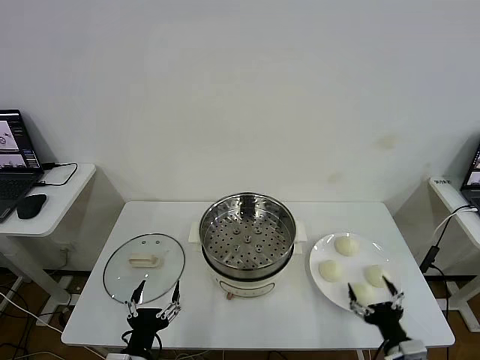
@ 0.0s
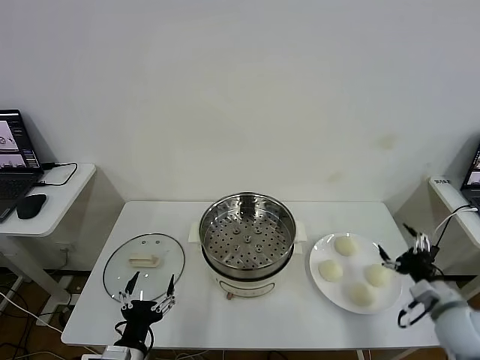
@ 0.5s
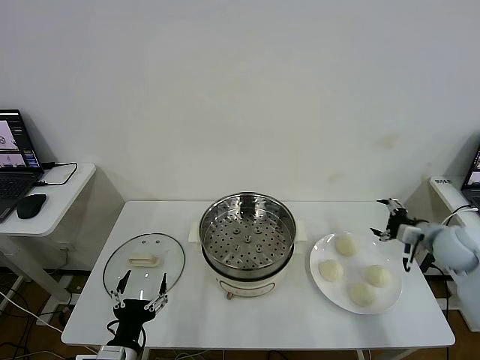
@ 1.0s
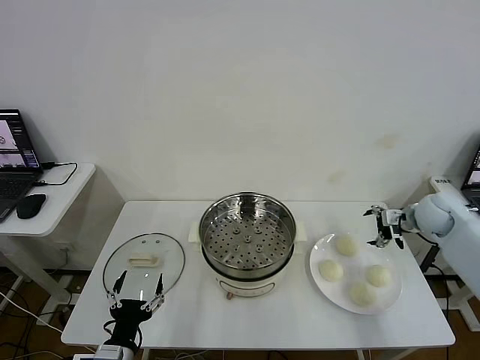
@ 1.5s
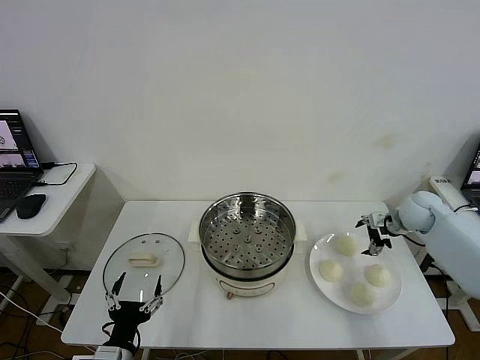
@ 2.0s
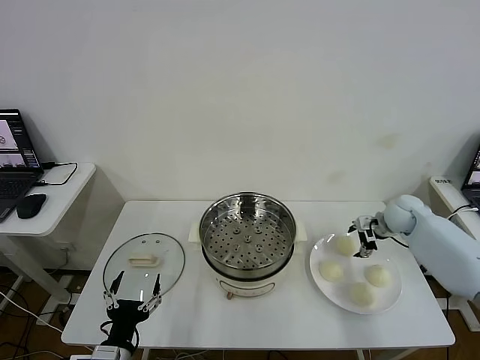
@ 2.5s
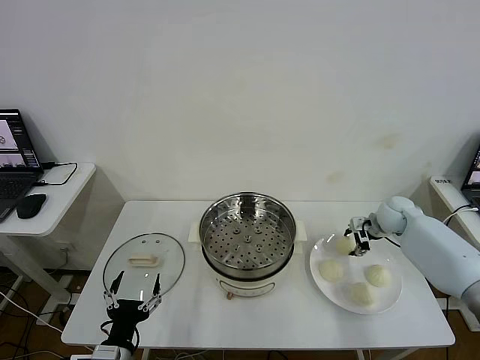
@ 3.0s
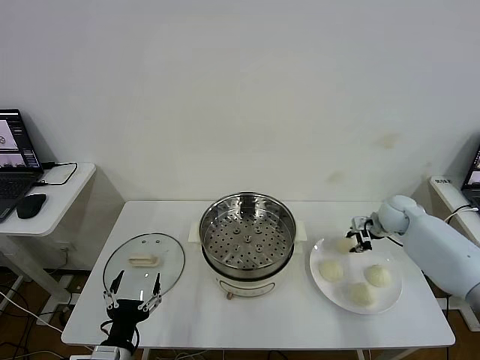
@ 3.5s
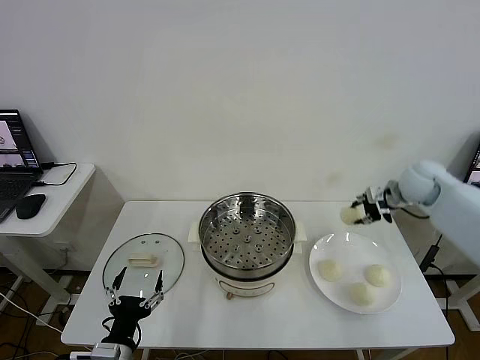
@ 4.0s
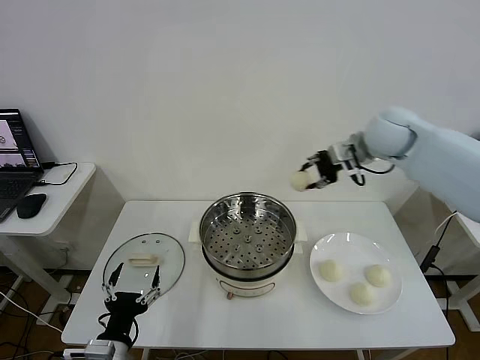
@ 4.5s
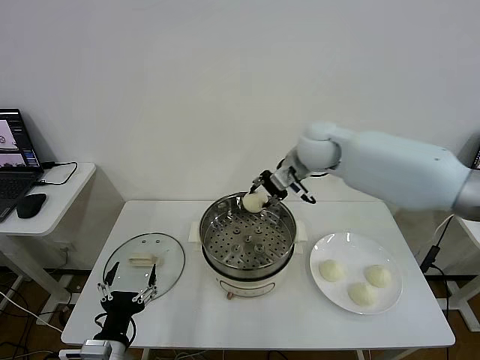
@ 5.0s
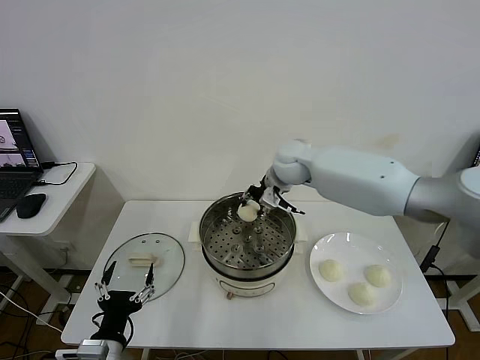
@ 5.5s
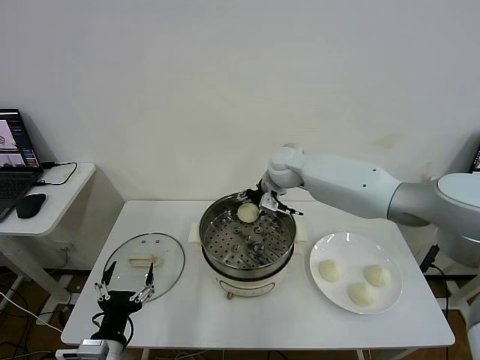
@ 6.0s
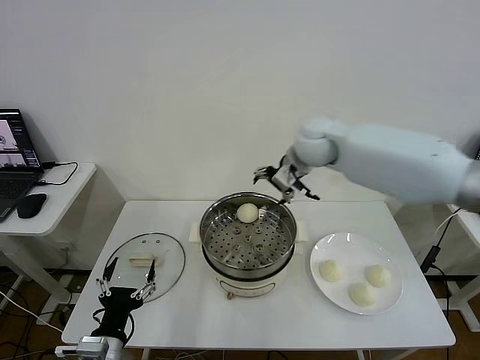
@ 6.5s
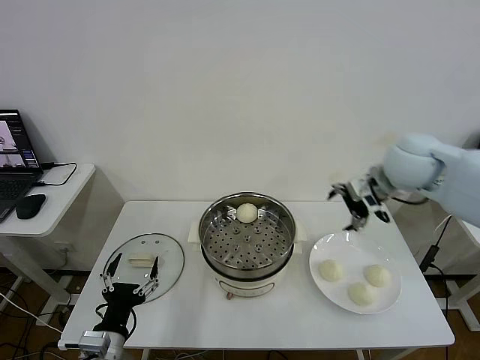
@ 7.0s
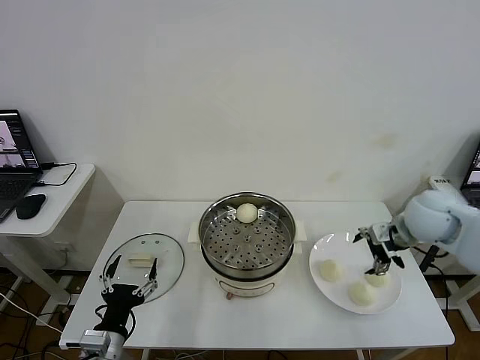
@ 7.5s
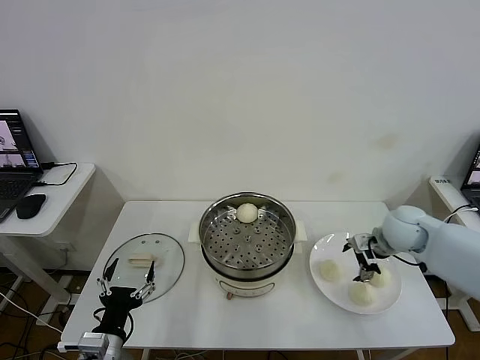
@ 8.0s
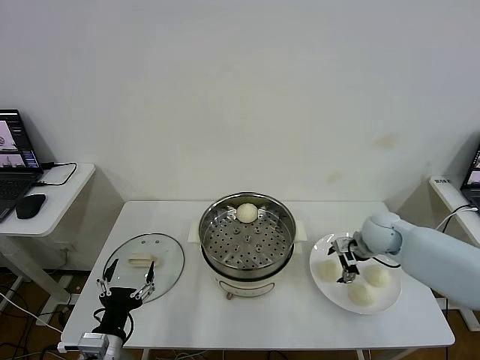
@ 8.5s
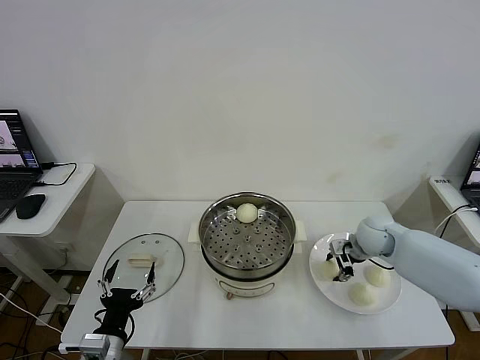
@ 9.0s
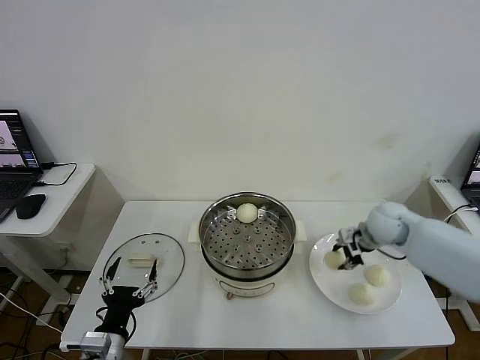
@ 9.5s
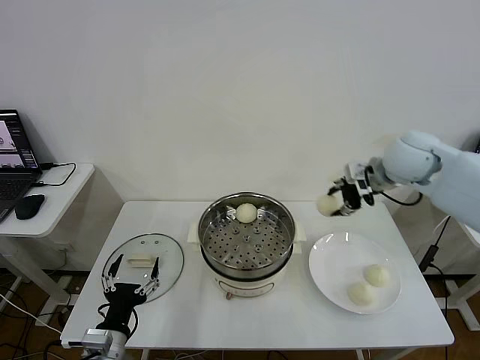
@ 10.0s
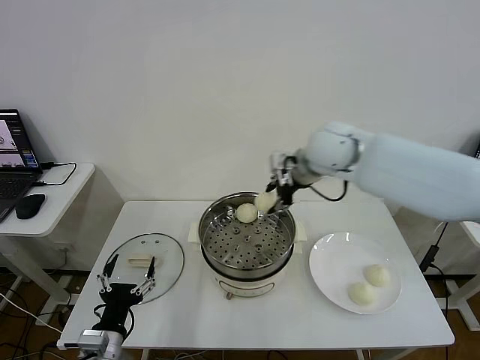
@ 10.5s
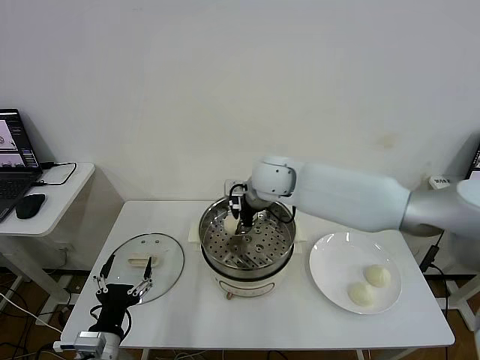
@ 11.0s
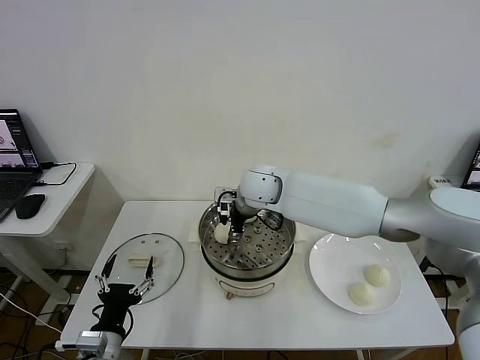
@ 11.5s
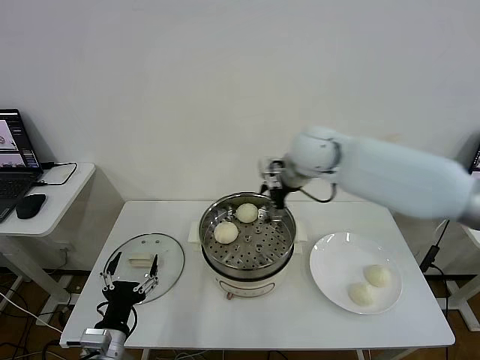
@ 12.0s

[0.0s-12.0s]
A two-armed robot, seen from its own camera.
Step, 0.0s to 3.0s: Grasp the baozi in the plate with right gripper.
Step, 3.5s to 6.0s: Place the baozi on the steamer with right gripper.
Step, 6.5s to 9.0s: Grasp the baozi in the plate with right gripper.
Step, 9.5s to 11.5s: Place the baozi on the steamer with right gripper.
2.0s to 4.0s: The right gripper travels upward by about 15 cm, and closes up.
4.0s to 6.0s: The right gripper travels to the left by about 30 cm, and opens up.
6.0s to 8.0s: The right gripper is displaced to the right and backward by some 30 cm.
8.0s to 10.0s: The right gripper is displaced upward by roughly 20 cm, and closes up.
10.0s to 12.0s: The right gripper shifts some 10 cm to the left, and opens up.

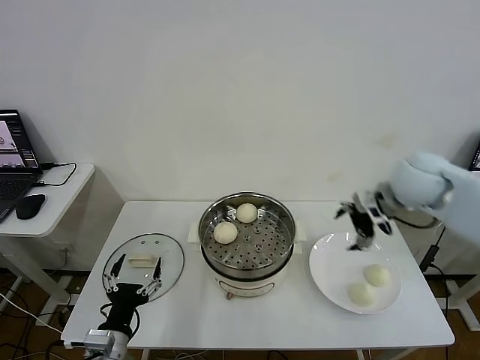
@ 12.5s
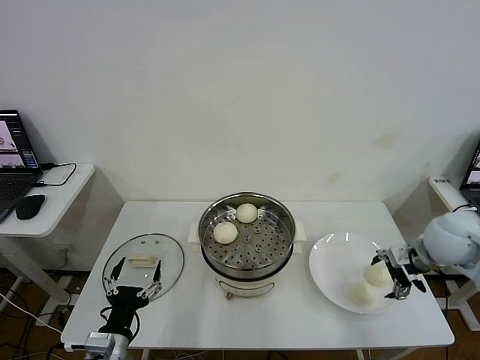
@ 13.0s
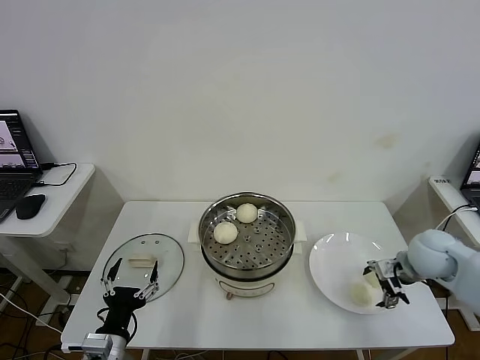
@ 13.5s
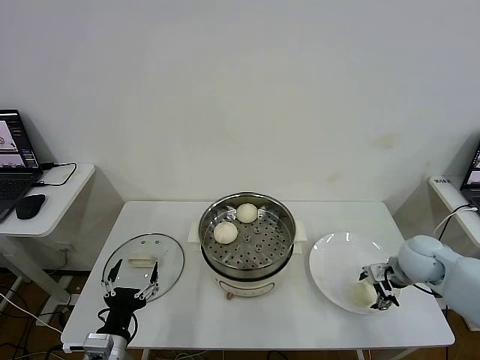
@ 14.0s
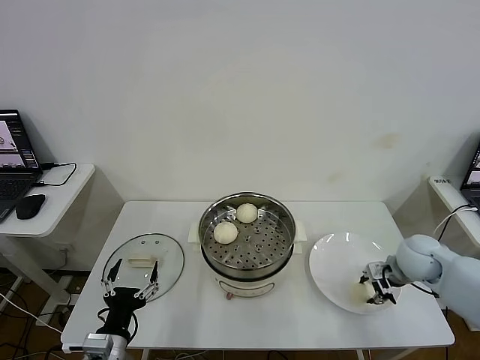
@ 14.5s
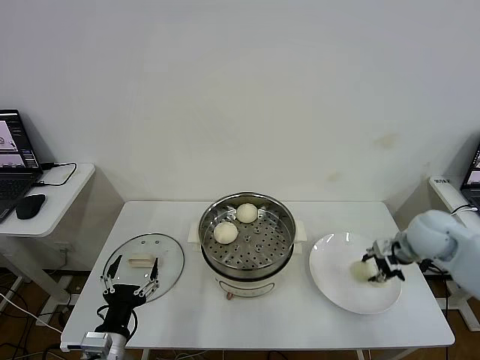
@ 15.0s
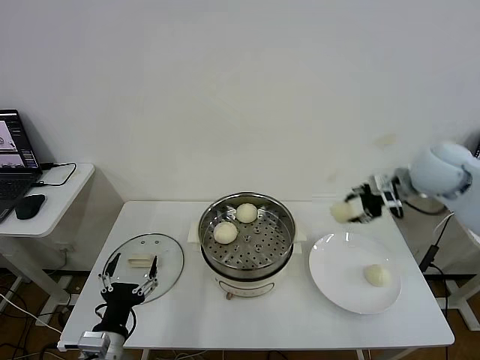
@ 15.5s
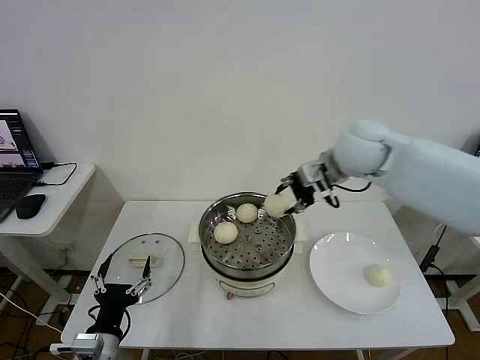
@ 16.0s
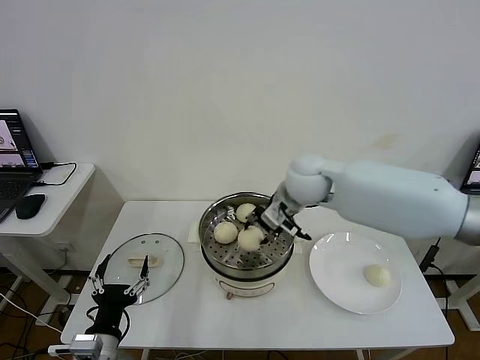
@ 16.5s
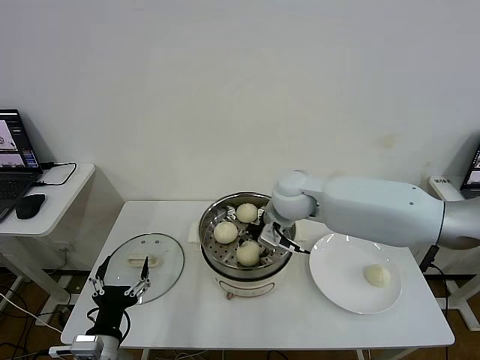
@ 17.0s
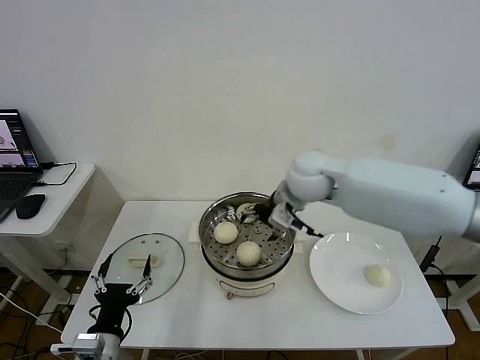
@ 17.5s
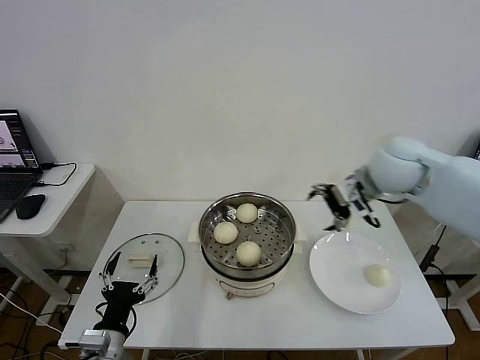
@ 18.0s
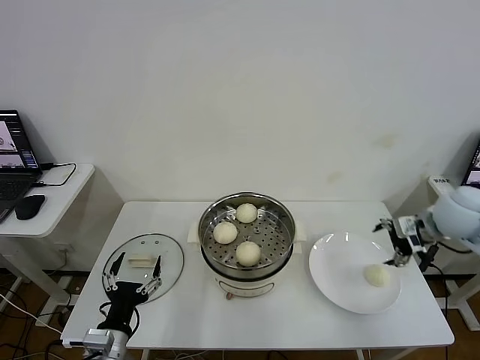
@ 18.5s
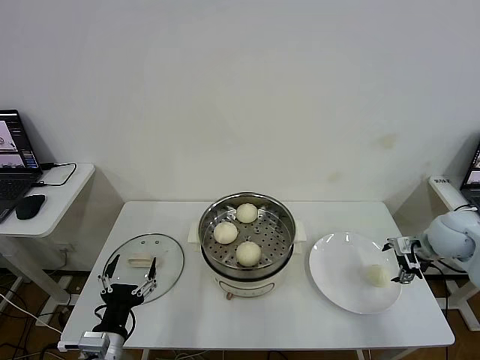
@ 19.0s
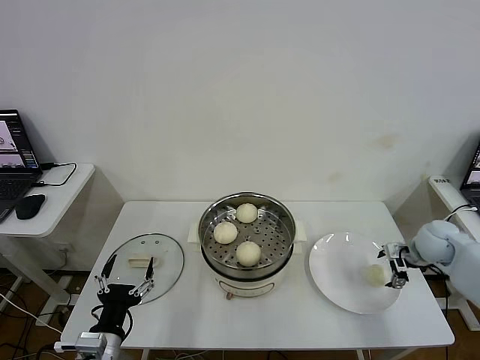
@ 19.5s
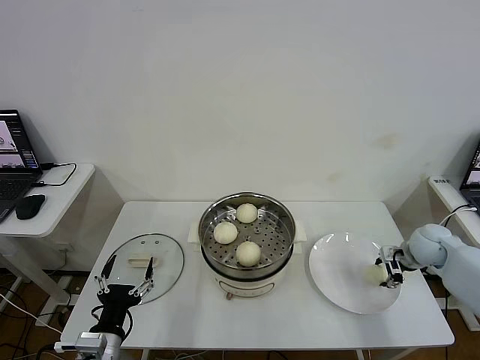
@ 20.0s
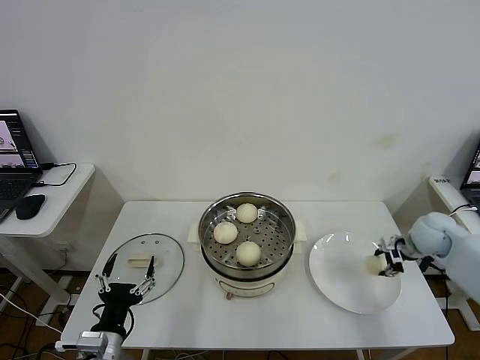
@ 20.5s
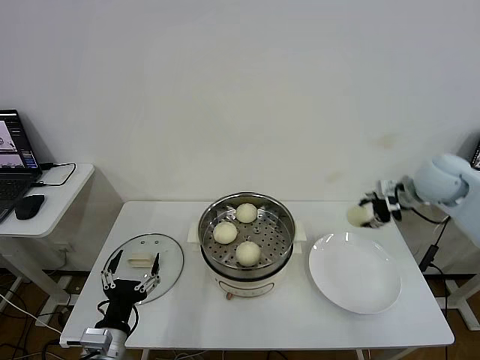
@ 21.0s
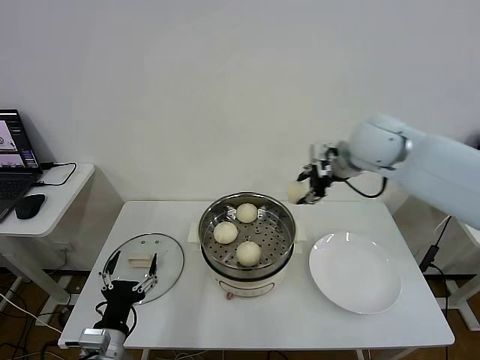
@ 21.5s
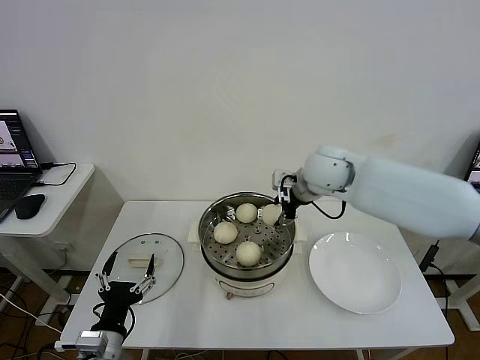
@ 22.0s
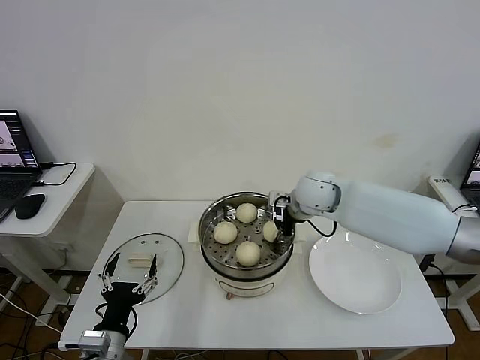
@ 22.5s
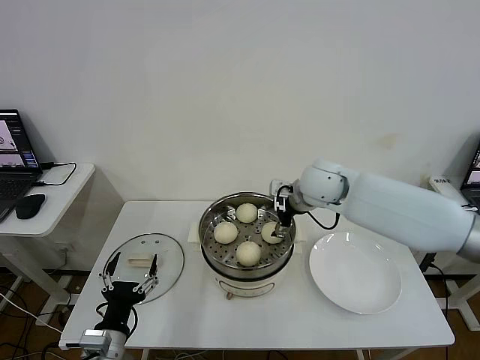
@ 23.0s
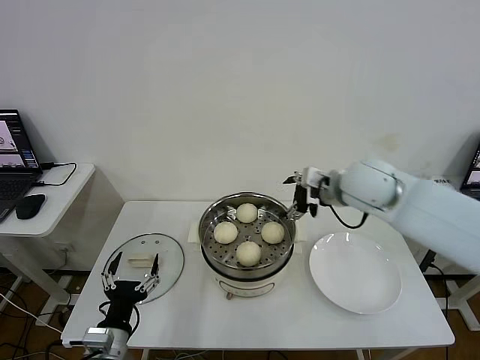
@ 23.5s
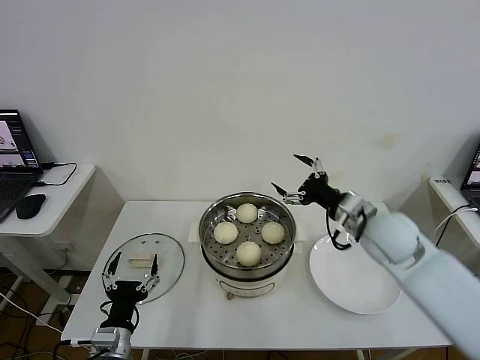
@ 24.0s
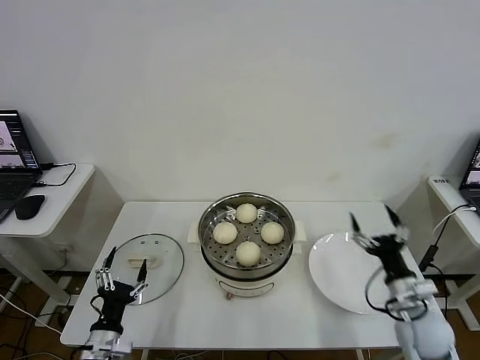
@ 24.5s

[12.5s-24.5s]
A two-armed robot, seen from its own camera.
Step, 12.5s to 14.0s: Grasp the baozi in the plate with right gripper.
Step, 14.5s to 17.0s: Place the baozi on the steamer with right gripper.
Step, 17.5s to 20.0s: Grasp the baozi in the plate with right gripper.
Step, 20.5s to 22.5s: Place the baozi on the steamer with right gripper.
12.5s to 14.5s: The right gripper is displaced downward by approximately 15 cm, and closes up.
14.5s to 16.5s: The right gripper heads to the left and upward, covering about 30 cm.
16.5s to 18.5s: The right gripper heads to the right, covering about 30 cm, and opens up.
18.5s to 20.5s: The right gripper is displaced downward by approximately 10 cm, and closes up.
20.5s to 22.5s: The right gripper goes approximately 30 cm to the left.
22.5s to 24.5s: The left gripper heads downward, covering roughly 5 cm. The right gripper travels backward, to the right and downward by approximately 35 cm, and opens up.

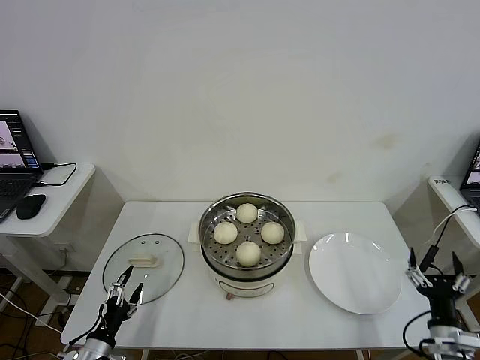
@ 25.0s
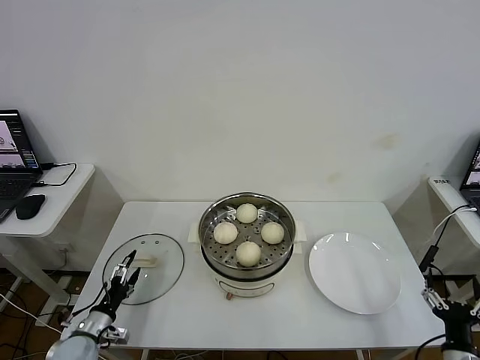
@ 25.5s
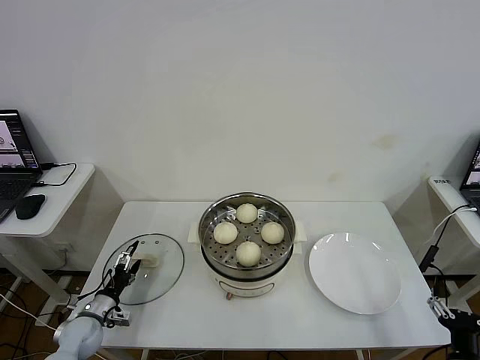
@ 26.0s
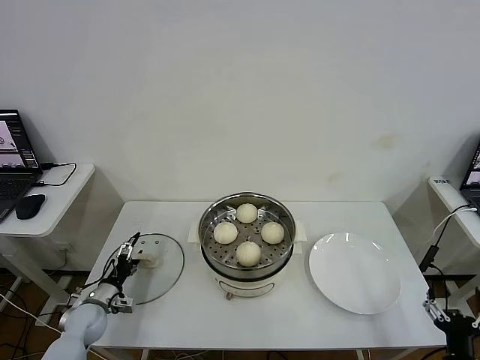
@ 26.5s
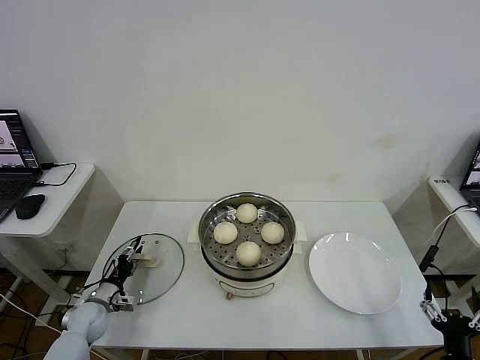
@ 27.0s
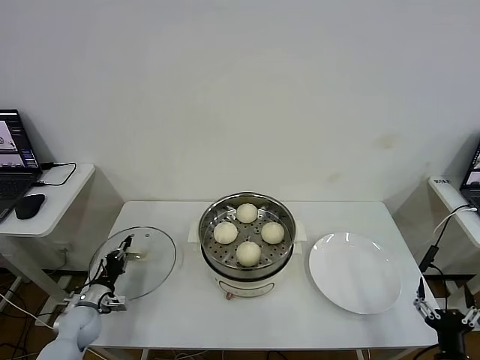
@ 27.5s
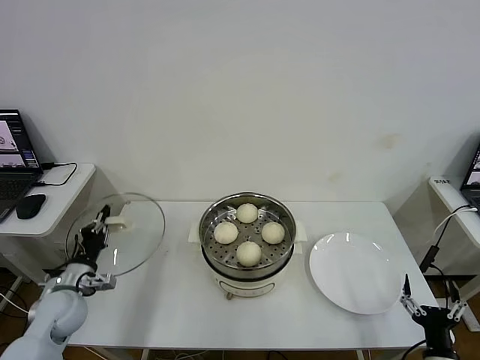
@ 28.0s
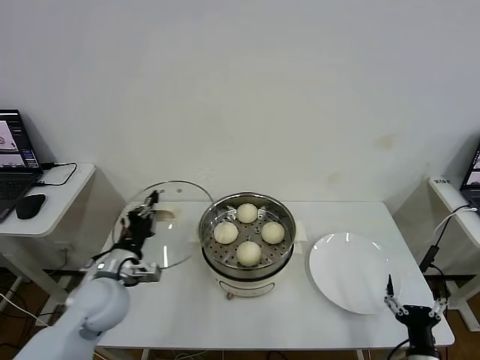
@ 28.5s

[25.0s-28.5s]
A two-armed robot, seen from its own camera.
Step, 25.0s to 27.5s: Grasp the pot lid with left gripper.
25.0s to 27.0s: The left gripper moves forward, roughly 15 cm, and closes. Meanwhile the right gripper moves backward, about 5 cm.
27.0s to 28.5s: The left gripper heads upward and to the right, covering some 25 cm, and closes its fingers.
